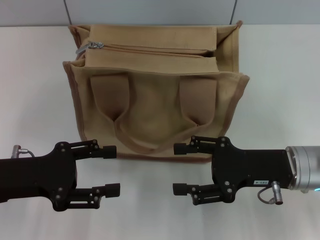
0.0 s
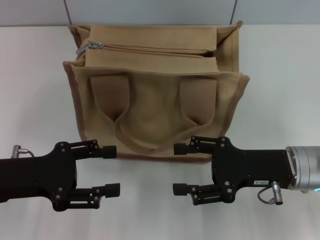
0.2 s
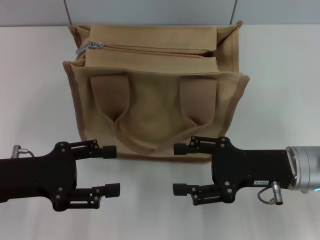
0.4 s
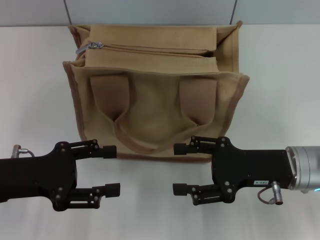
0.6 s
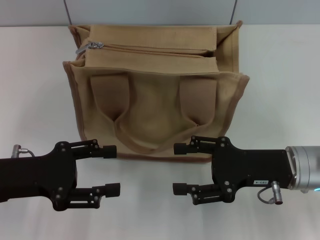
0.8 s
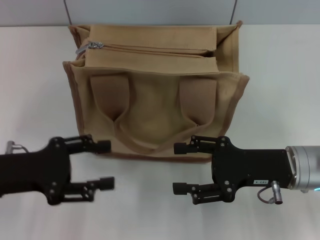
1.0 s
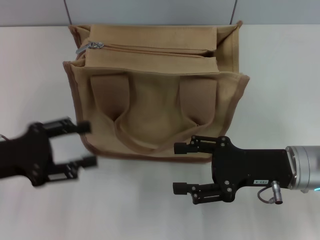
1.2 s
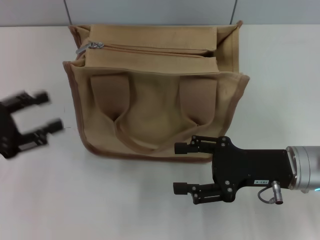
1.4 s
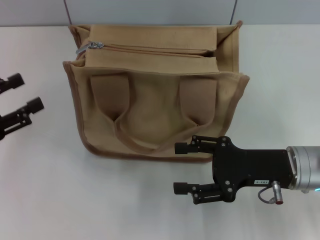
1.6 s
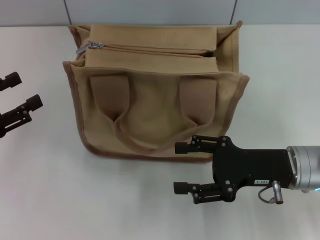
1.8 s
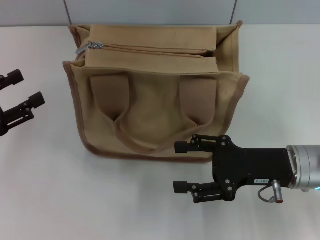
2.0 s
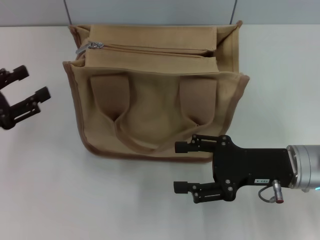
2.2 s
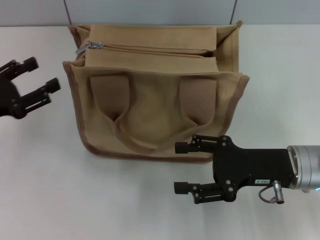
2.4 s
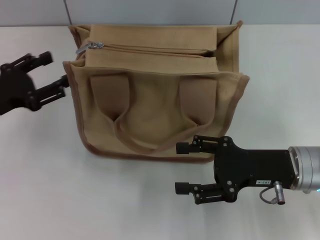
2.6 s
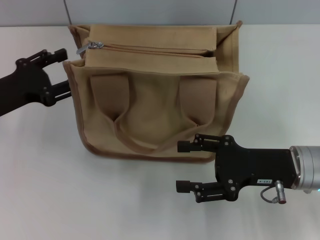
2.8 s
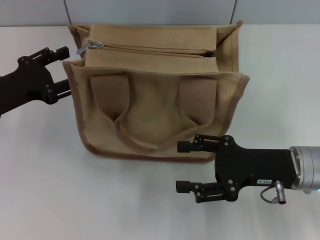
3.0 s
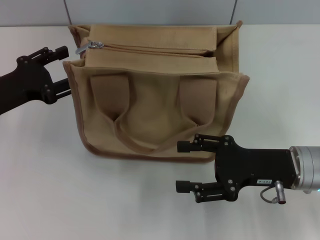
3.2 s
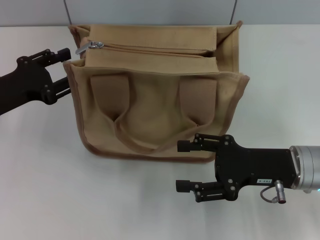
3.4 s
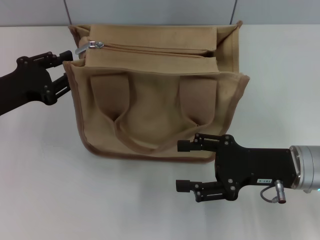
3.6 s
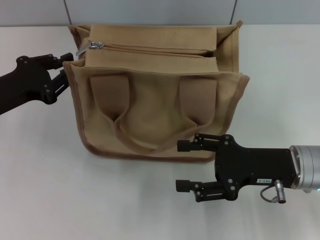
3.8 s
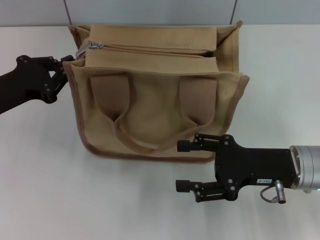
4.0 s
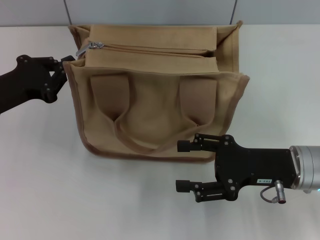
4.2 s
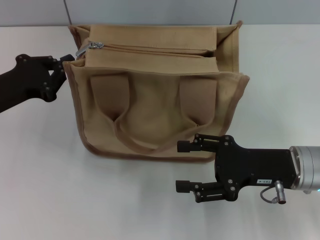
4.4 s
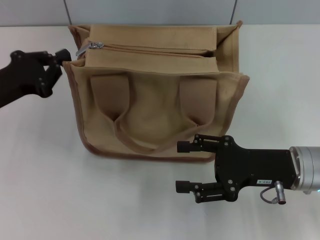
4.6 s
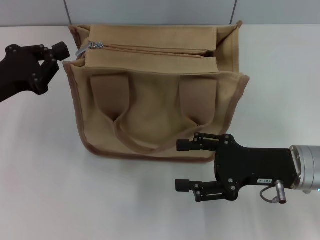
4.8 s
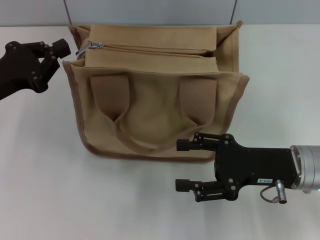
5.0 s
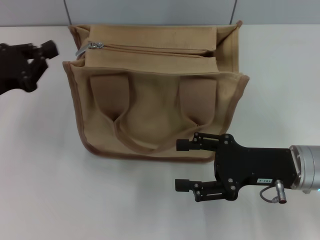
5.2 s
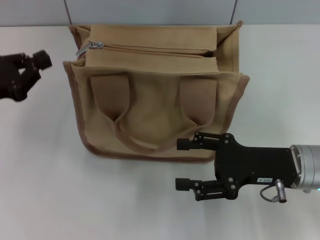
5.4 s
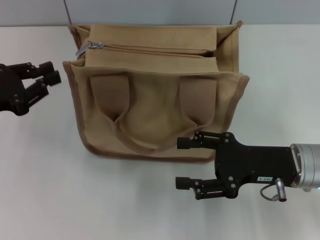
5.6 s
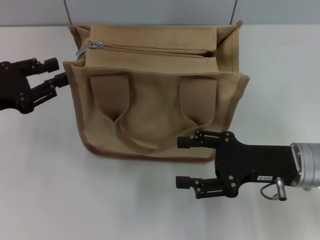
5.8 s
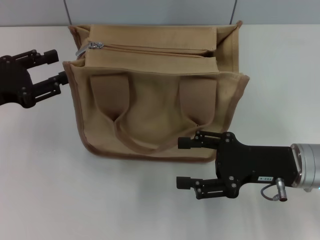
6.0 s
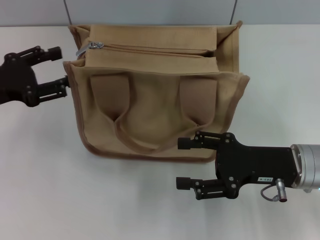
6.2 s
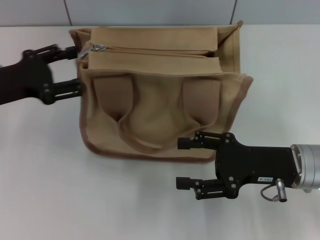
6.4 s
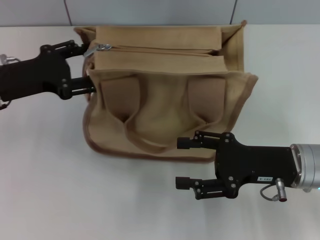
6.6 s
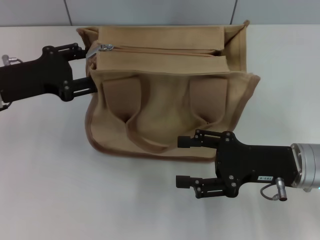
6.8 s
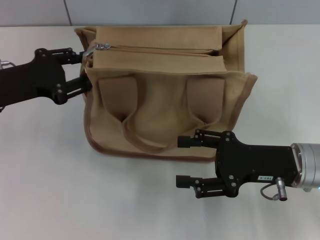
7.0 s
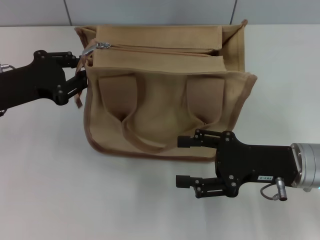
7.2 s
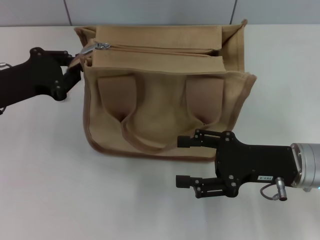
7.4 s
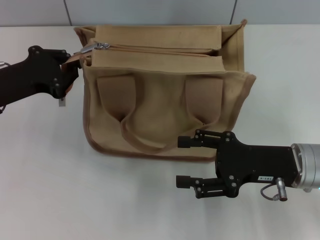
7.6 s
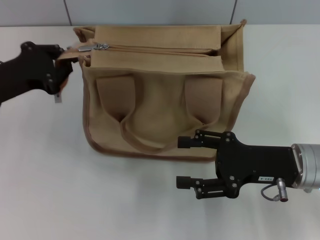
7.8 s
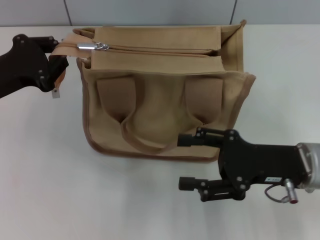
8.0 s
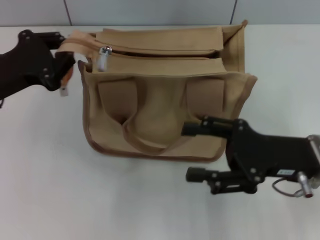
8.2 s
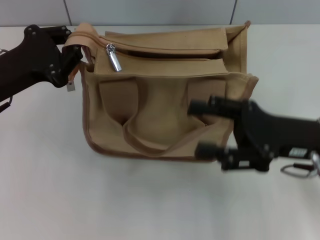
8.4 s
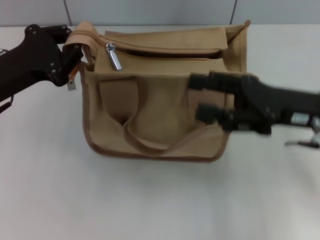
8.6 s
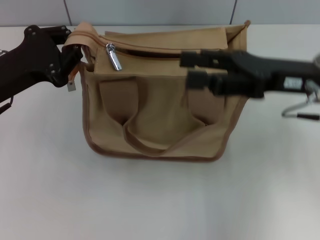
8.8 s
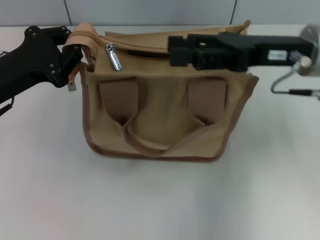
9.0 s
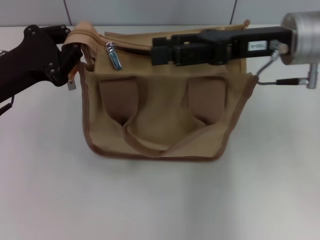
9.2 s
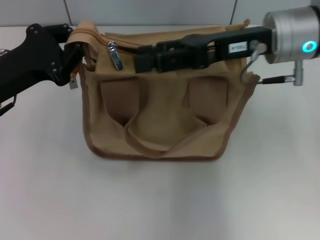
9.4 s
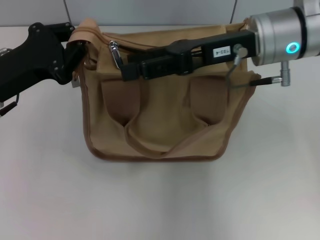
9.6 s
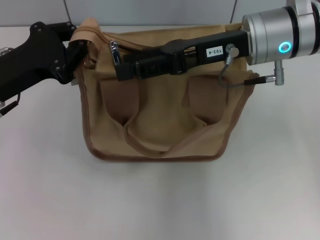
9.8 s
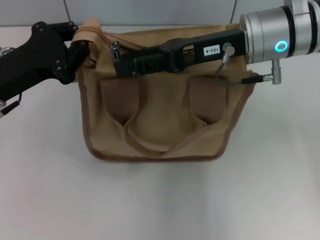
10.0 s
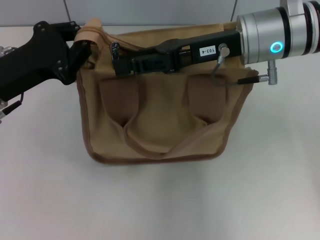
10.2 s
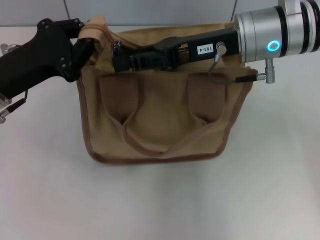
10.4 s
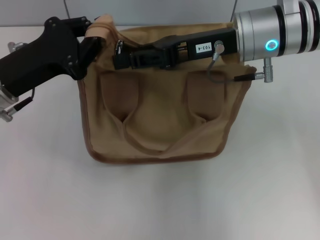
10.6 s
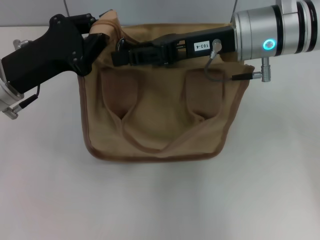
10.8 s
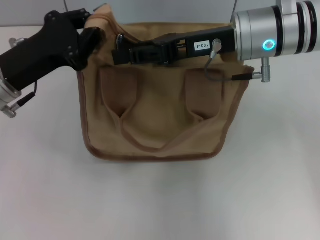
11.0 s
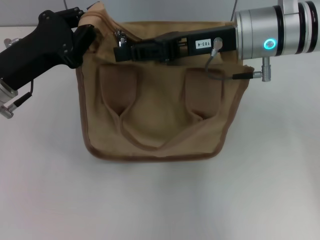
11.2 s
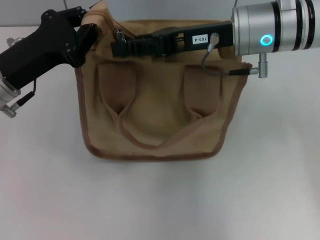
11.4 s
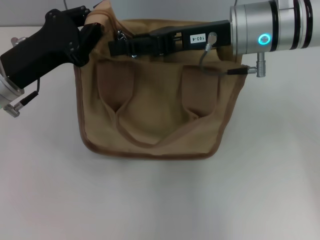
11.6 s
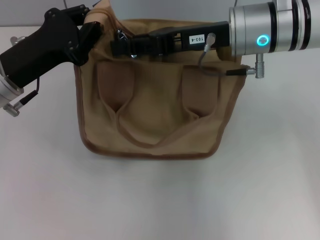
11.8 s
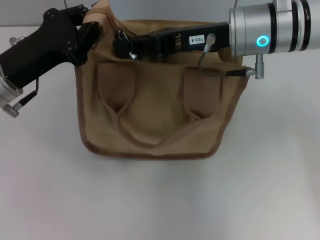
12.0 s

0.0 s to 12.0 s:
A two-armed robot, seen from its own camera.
0.0 to 1.6 s: The left gripper goes about 10 cm to the left.
1.6 to 3.0 s: The left gripper travels forward and to the right by roughly 10 cm.
3.0 to 4.4 s: The left gripper closes.
4.4 to 6.0 s: The left gripper opens.
6.0 to 7.6 s: The left gripper closes its fingers.
7.6 to 9.0 s: The right gripper moves upward and forward, about 15 cm.
9.0 to 10.4 s: The right gripper goes approximately 5 cm to the left, and closes up.
10.4 to 12.0 s: The right gripper closes up.

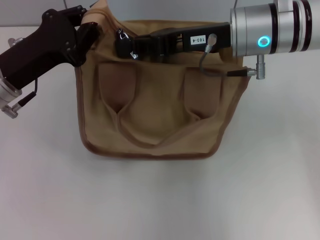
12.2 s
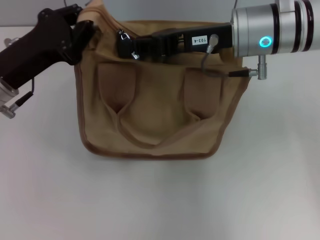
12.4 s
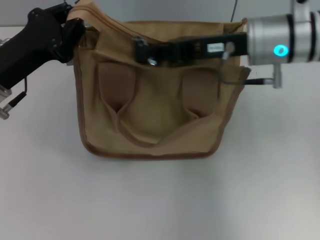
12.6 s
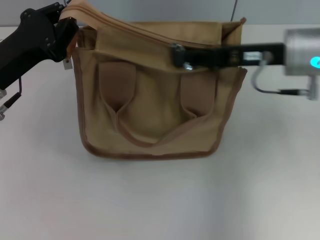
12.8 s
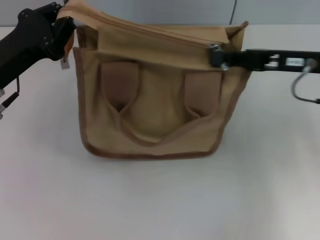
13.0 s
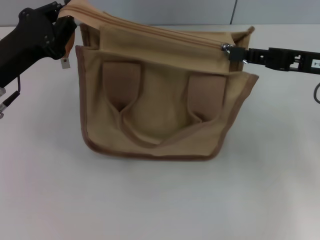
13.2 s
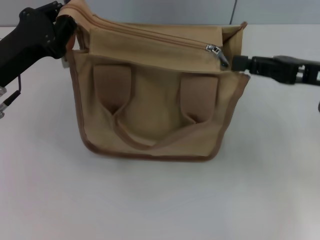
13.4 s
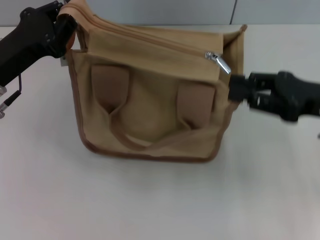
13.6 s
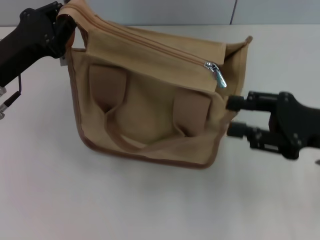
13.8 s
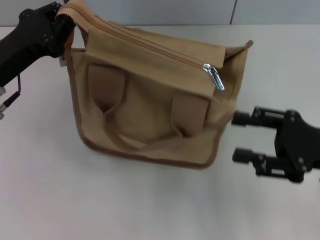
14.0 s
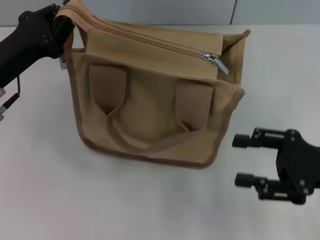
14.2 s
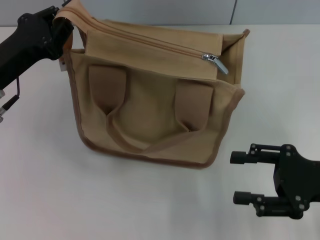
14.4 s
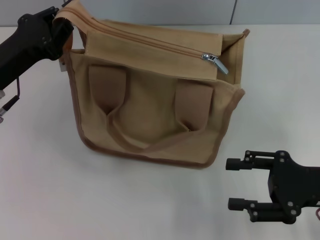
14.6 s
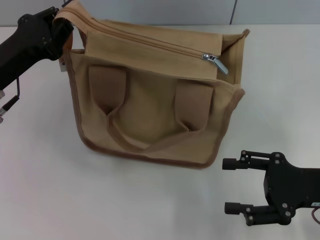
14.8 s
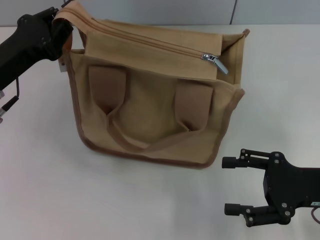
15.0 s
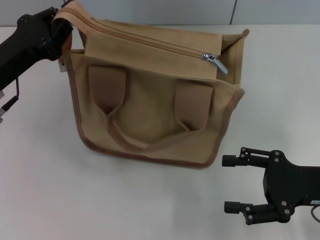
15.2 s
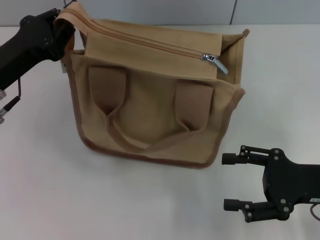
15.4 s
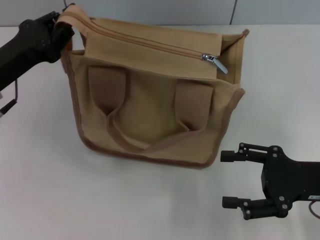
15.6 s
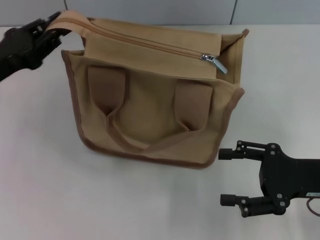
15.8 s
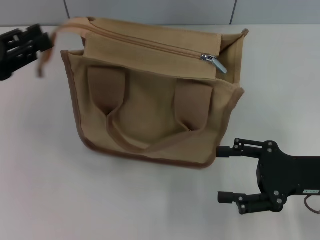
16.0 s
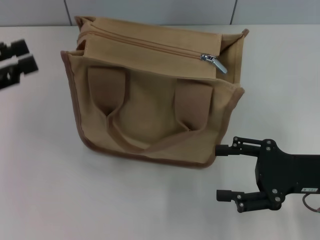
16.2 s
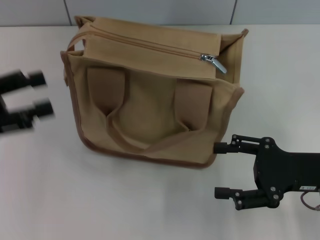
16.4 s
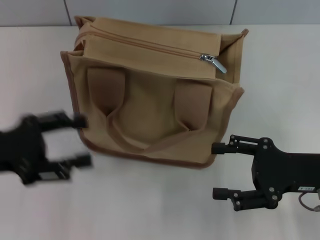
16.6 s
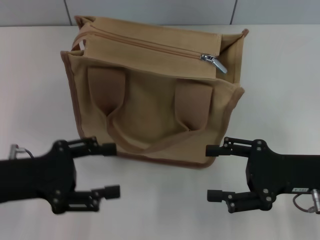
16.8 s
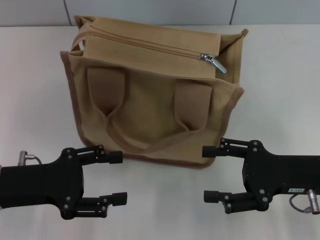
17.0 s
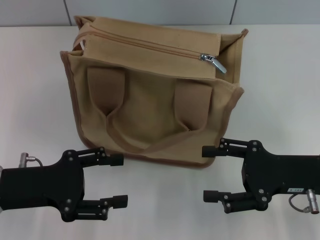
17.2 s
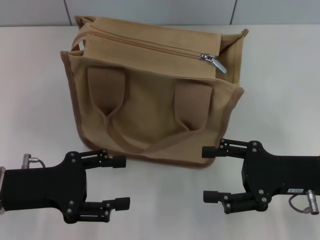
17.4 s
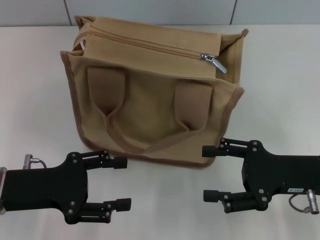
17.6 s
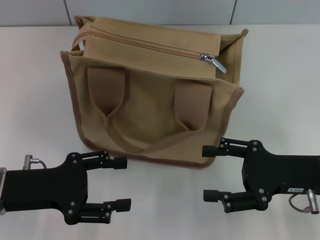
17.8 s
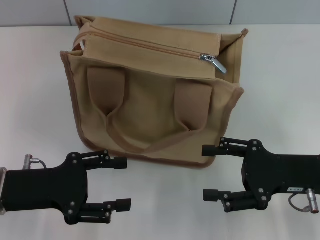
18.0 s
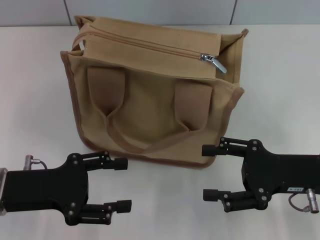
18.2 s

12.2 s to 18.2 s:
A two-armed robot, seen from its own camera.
Step, 13.4 to 16.0 s: Grab the zipper with your left hand.
12.2 to 13.8 s: The right gripper moves to the right, backward and downward, roughly 20 cm.
13.8 to 15.2 s: The right gripper moves approximately 5 cm, and opens its fingers.
15.2 to 16.6 s: The left gripper travels backward by roughly 5 cm, and opens up.
16.6 to 18.2 s: The left gripper moves approximately 5 cm.

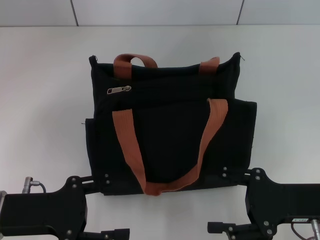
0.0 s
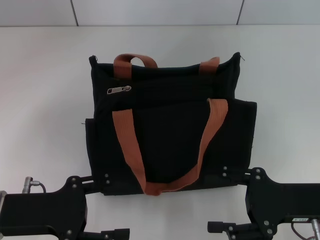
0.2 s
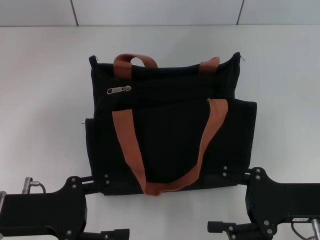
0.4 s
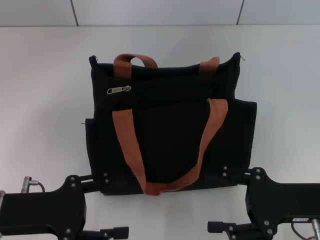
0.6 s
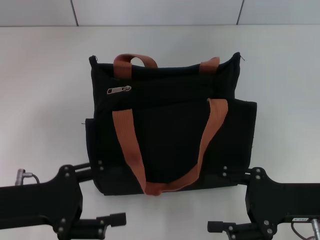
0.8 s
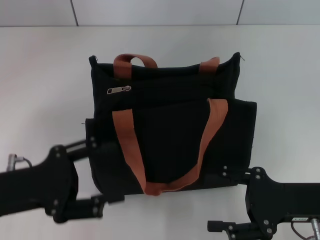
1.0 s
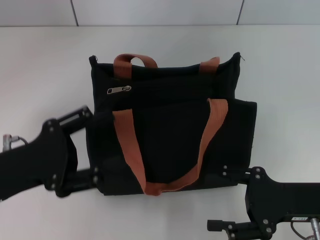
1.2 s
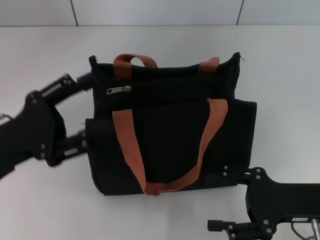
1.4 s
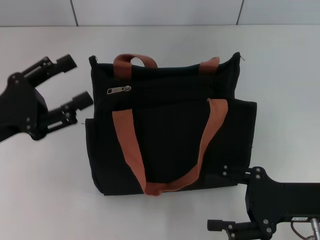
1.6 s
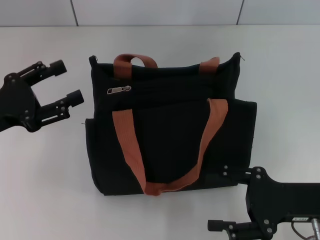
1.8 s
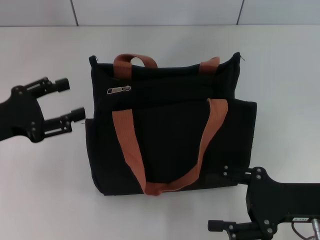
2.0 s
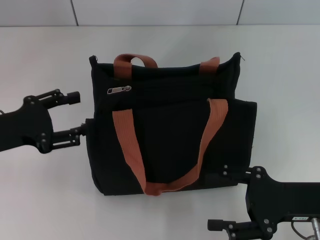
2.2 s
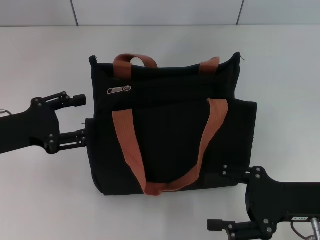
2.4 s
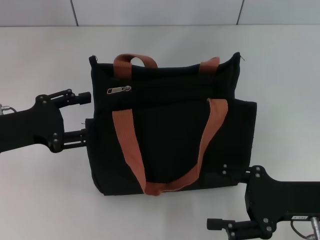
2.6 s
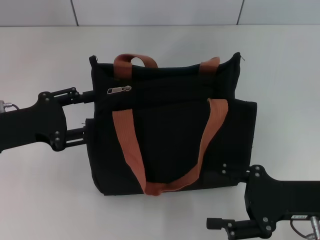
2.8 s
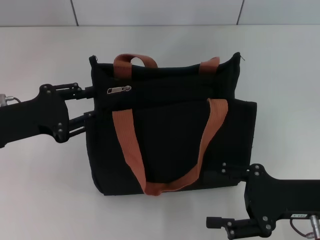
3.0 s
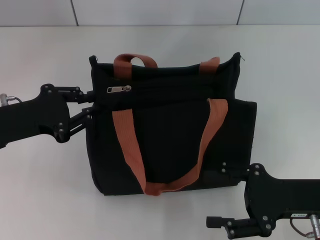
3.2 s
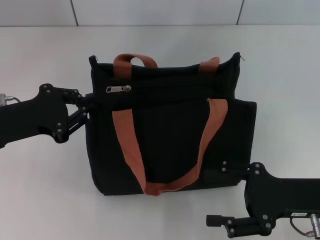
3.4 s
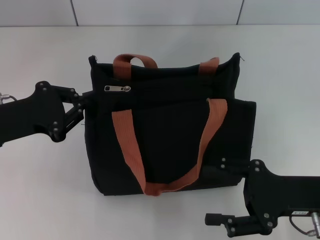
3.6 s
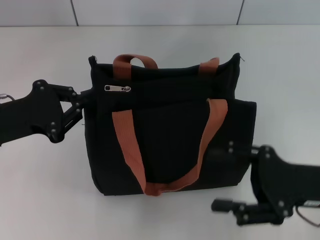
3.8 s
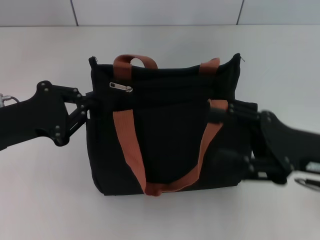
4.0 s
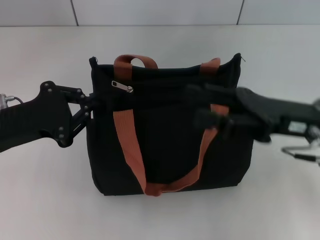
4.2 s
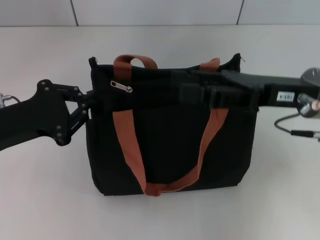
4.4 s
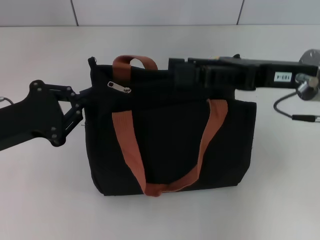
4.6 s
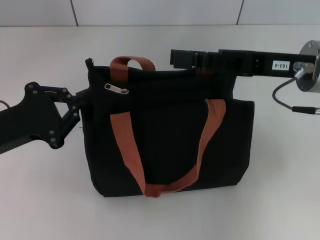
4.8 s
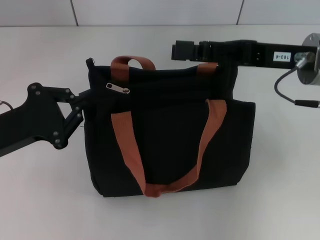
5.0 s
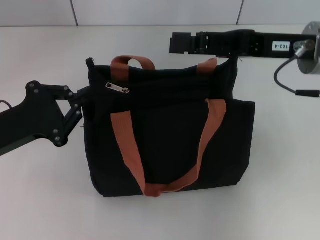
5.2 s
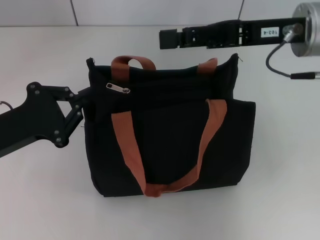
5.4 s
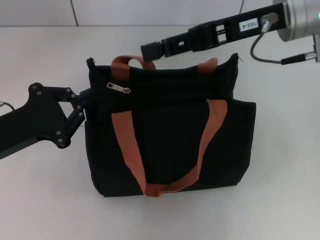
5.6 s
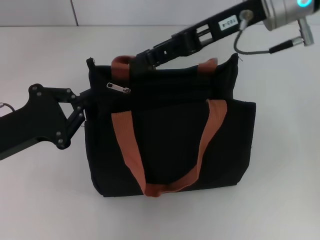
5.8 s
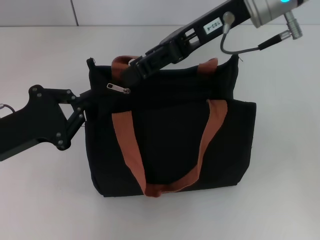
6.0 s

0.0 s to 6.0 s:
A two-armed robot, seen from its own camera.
0.0 to 1.6 s: The left gripper shifts by approximately 5 cm.
3.0 to 4.4 s: The right gripper travels upward and forward by some 15 cm. Meanwhile the left gripper closes up.
4.4 to 6.0 s: The right gripper goes approximately 15 cm upward, to the left and forward.
